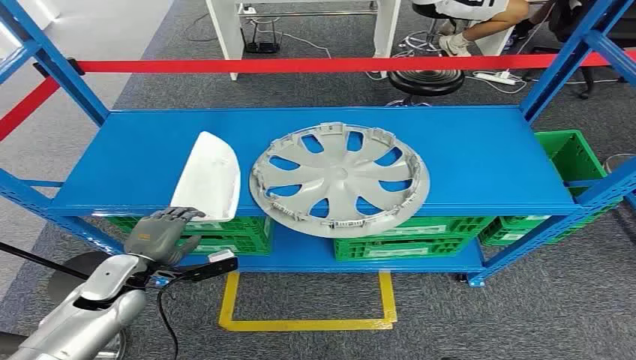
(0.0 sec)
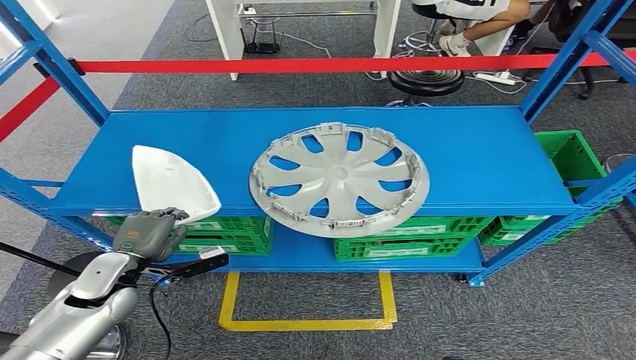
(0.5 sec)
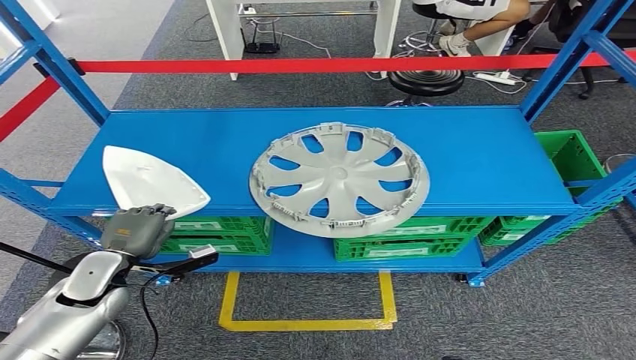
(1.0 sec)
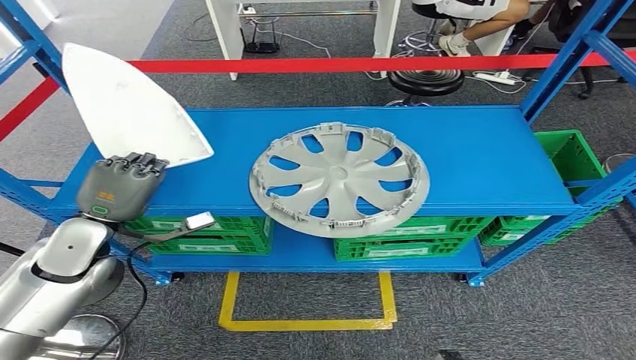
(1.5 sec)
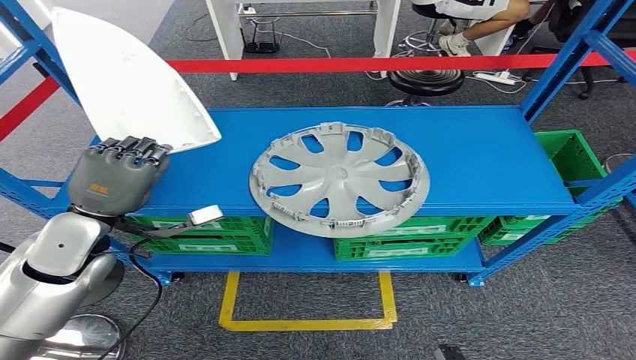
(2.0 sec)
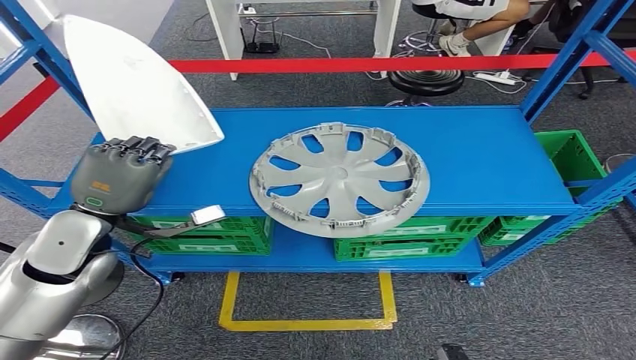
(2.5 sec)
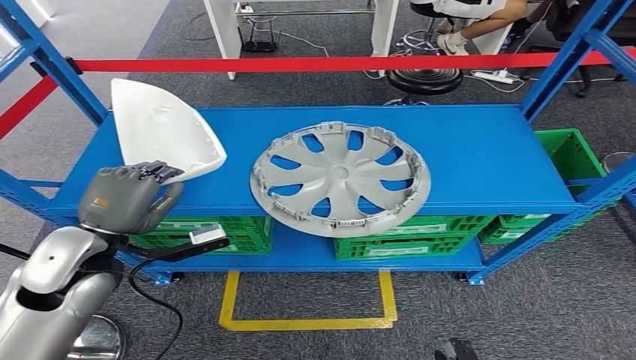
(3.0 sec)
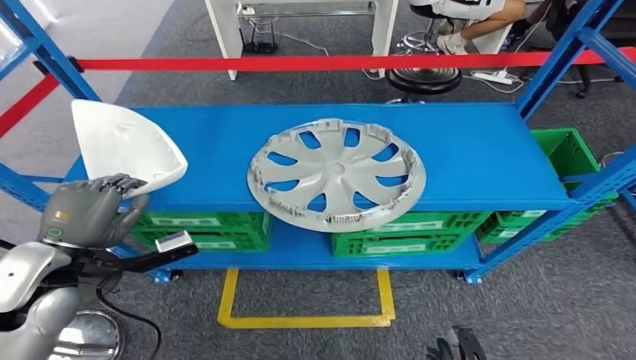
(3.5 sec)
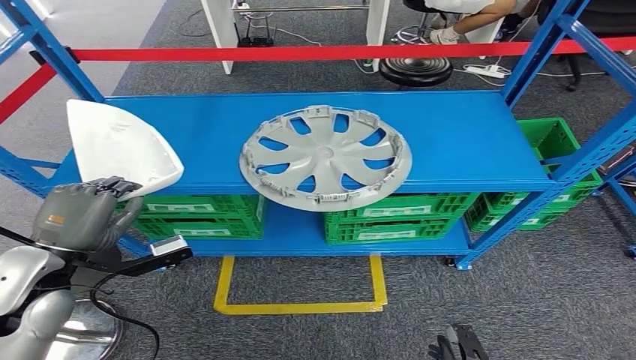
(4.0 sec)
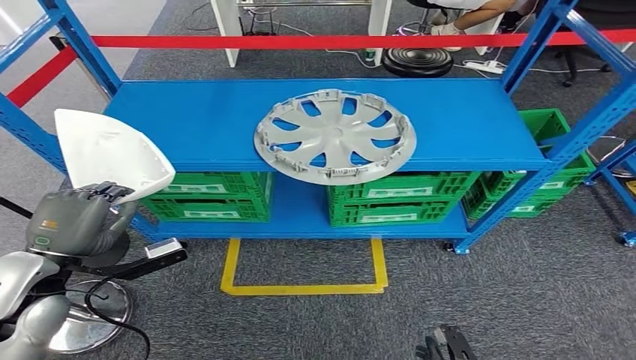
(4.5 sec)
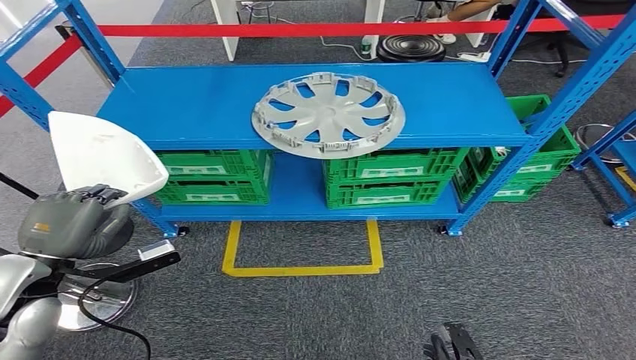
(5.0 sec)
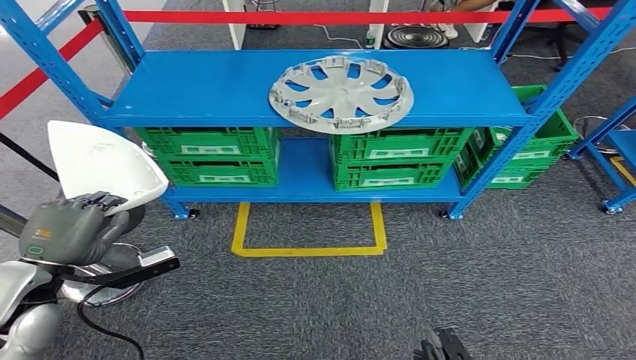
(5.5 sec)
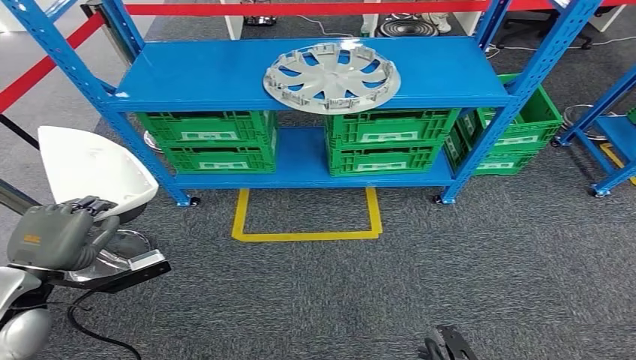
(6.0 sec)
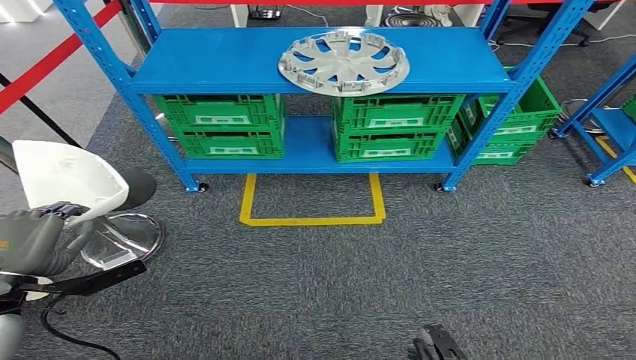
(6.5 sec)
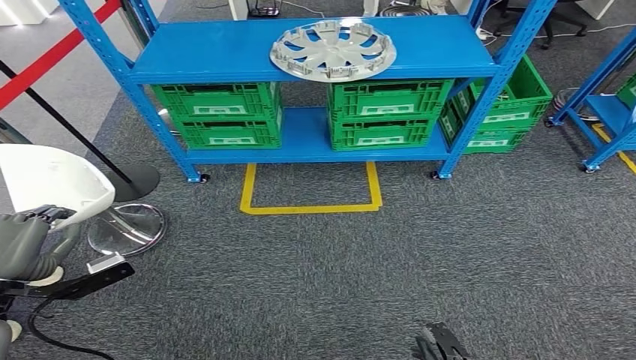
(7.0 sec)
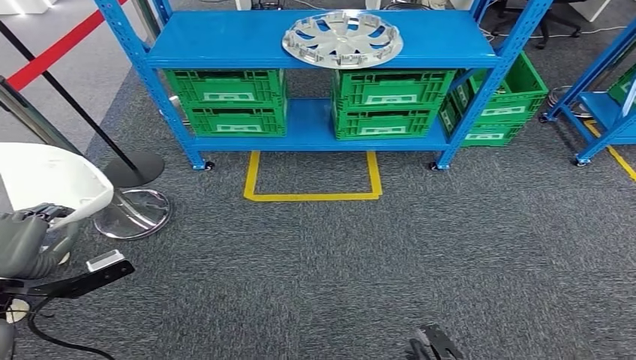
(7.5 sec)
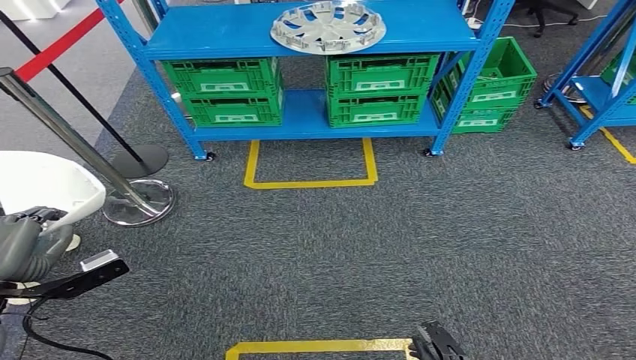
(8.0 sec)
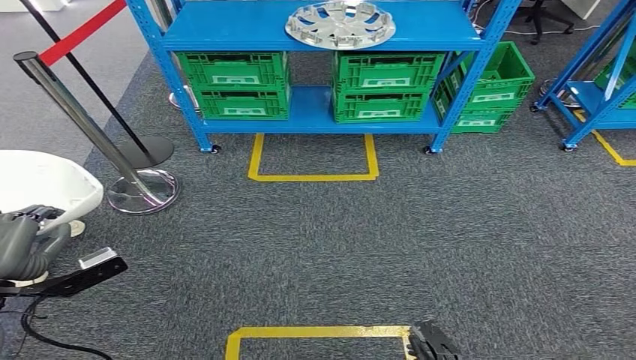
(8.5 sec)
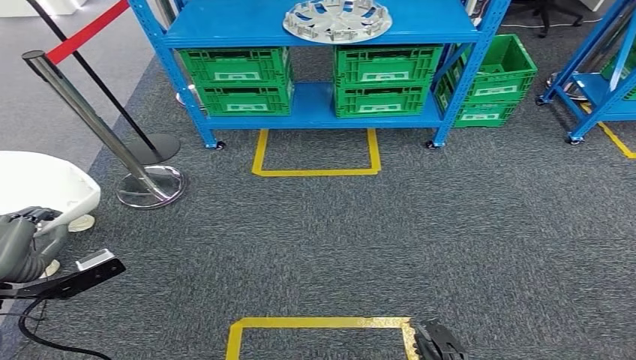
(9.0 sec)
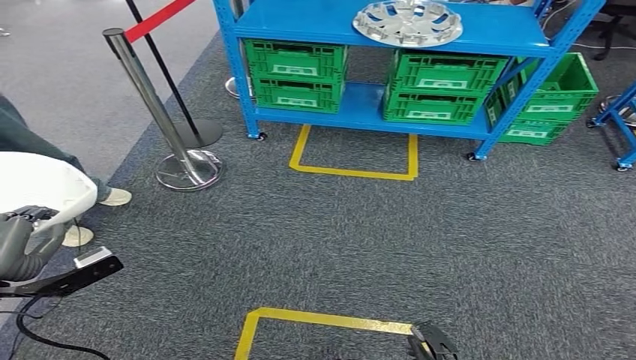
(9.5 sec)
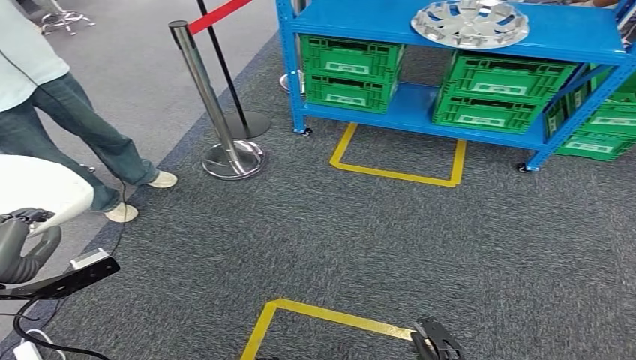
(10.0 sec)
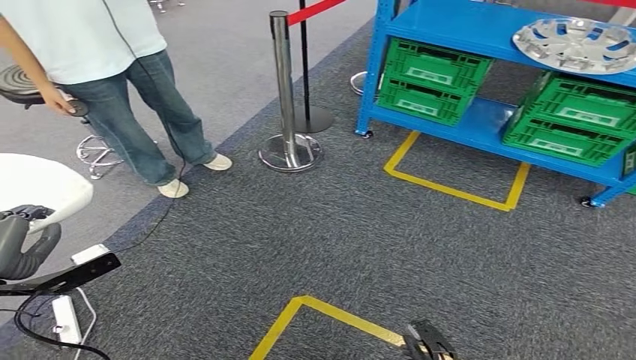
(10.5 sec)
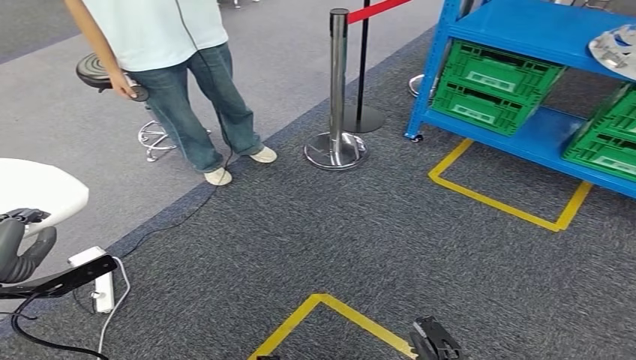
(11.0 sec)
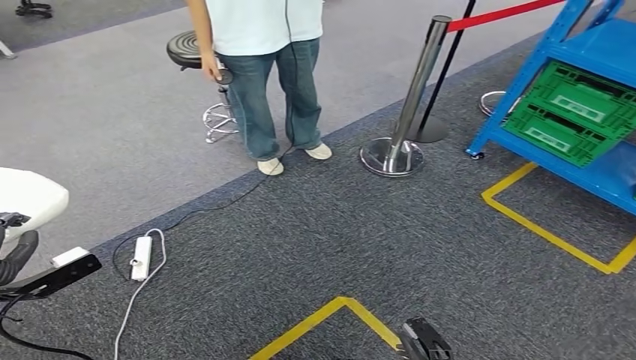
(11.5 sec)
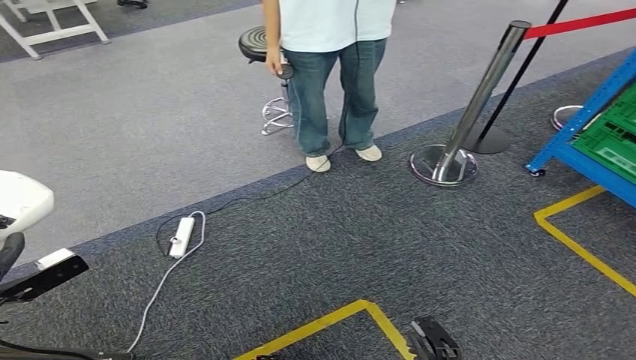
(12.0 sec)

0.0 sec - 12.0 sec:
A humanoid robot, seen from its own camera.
Step, 0.0 sec - 3.0 sec: Pick up the small parts from the shelf.

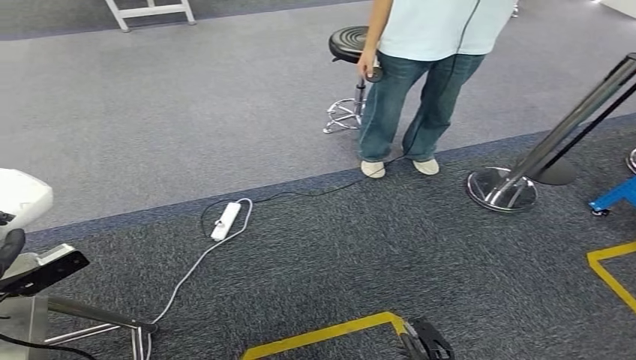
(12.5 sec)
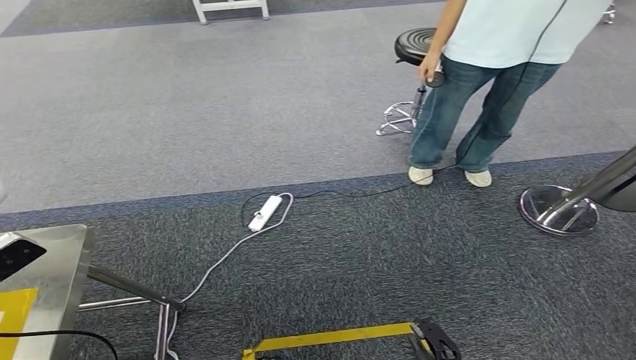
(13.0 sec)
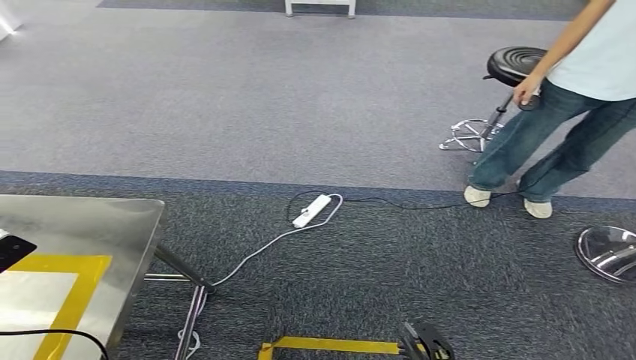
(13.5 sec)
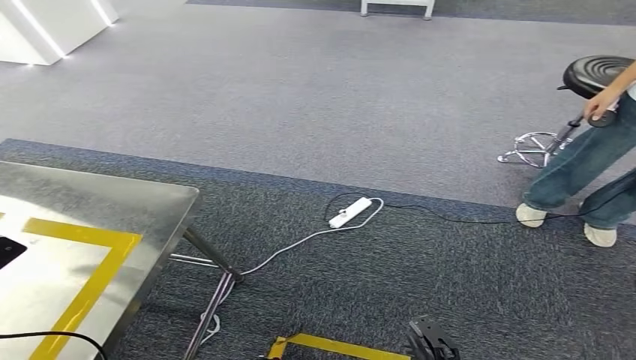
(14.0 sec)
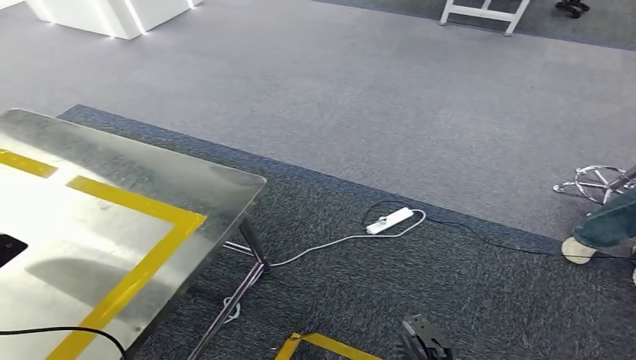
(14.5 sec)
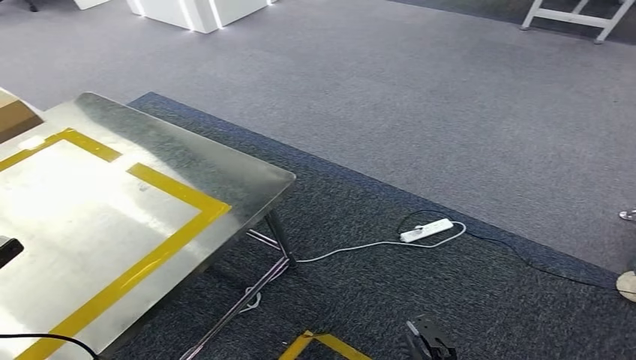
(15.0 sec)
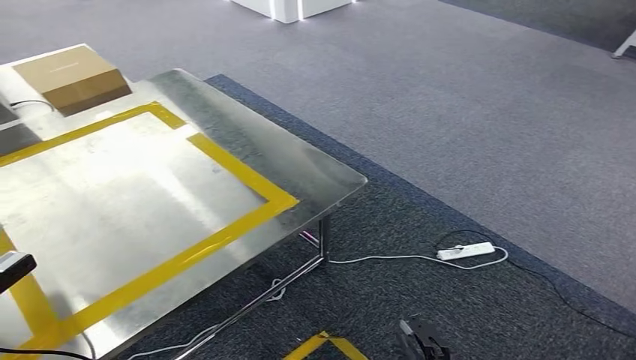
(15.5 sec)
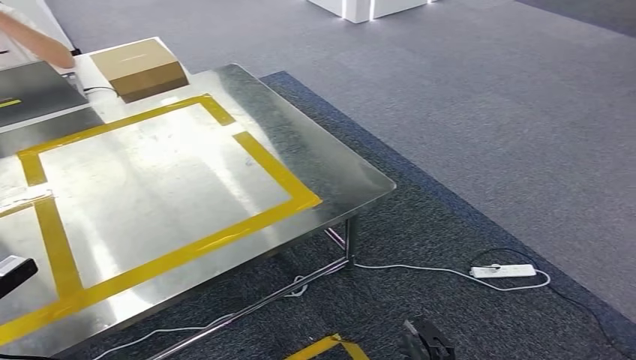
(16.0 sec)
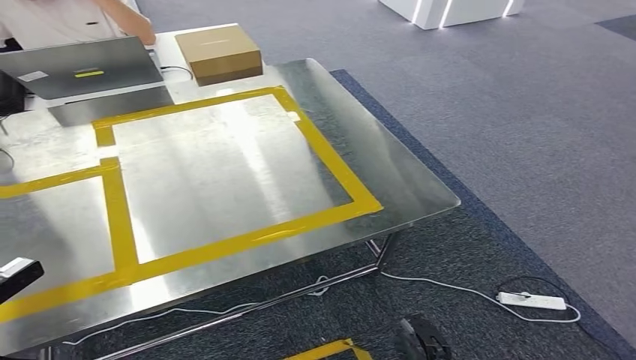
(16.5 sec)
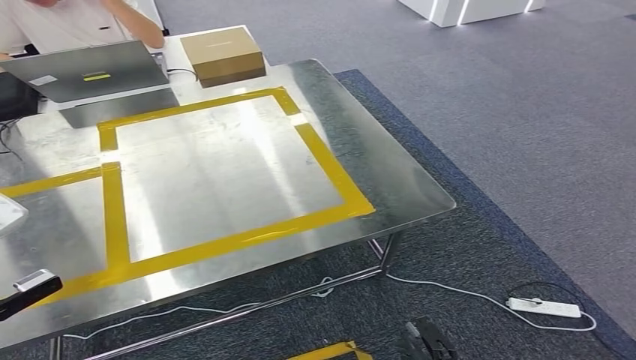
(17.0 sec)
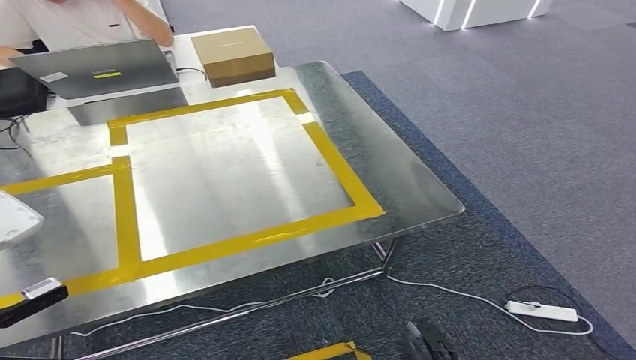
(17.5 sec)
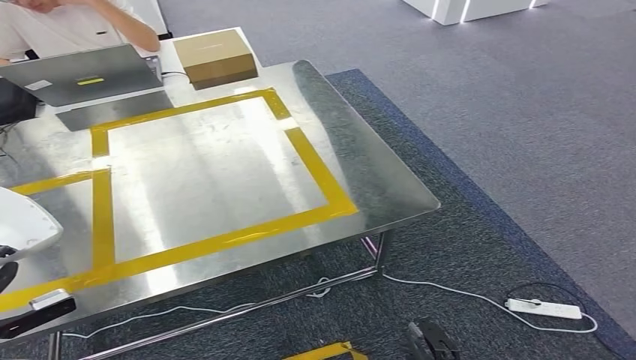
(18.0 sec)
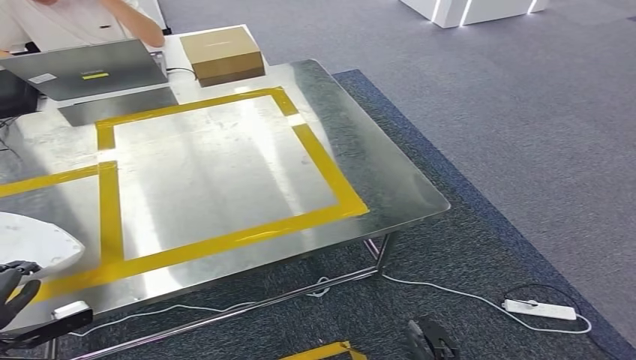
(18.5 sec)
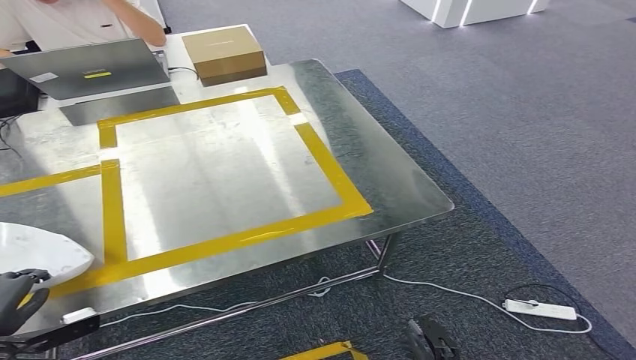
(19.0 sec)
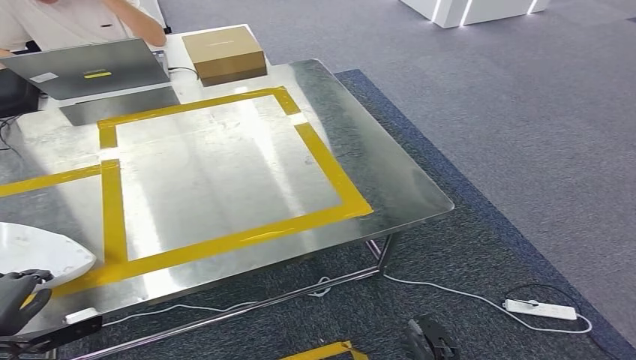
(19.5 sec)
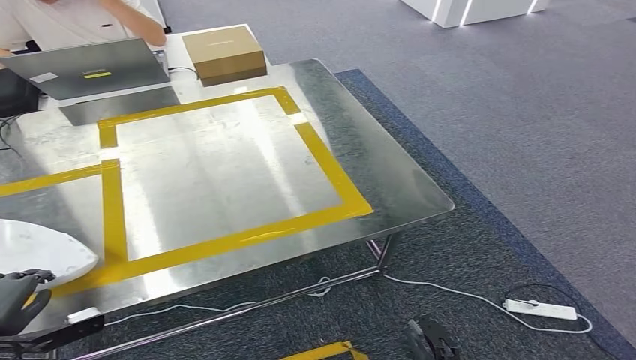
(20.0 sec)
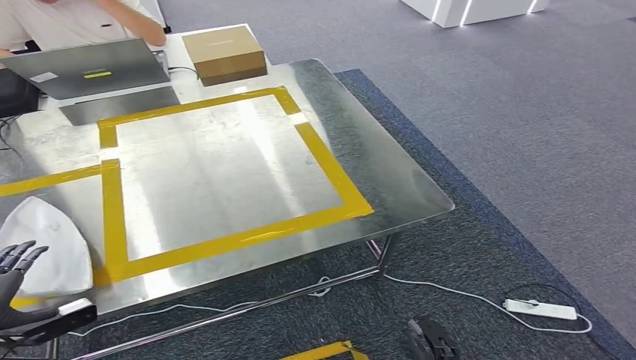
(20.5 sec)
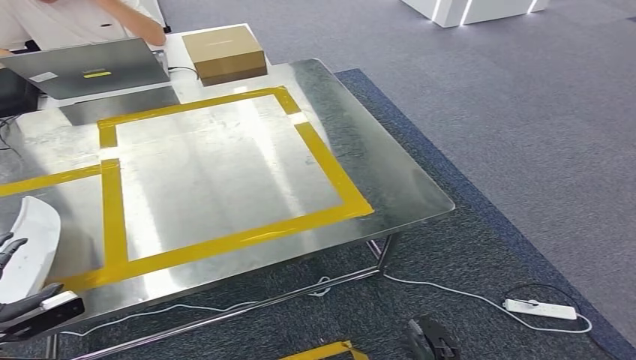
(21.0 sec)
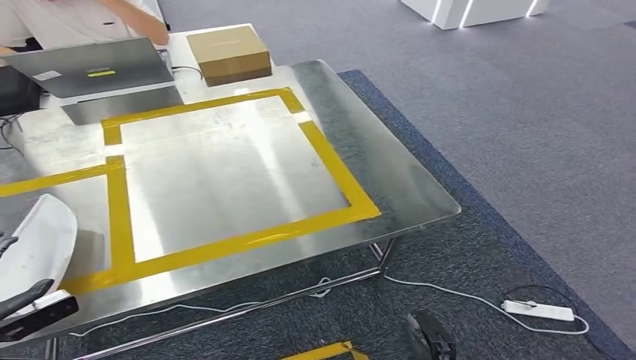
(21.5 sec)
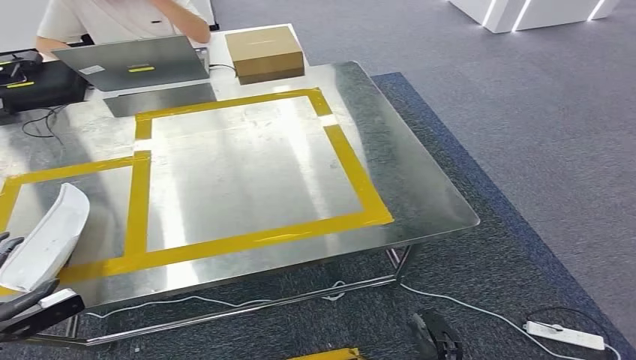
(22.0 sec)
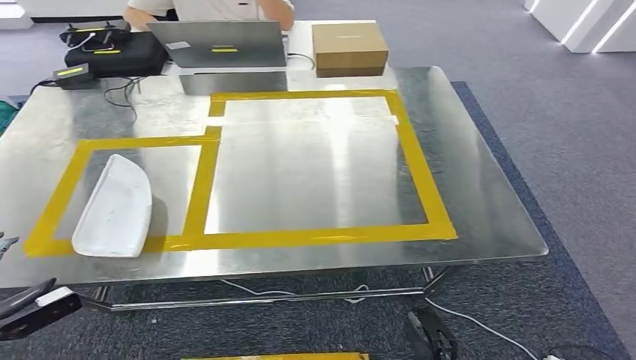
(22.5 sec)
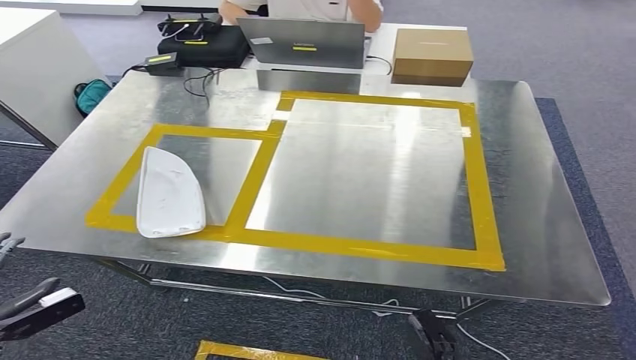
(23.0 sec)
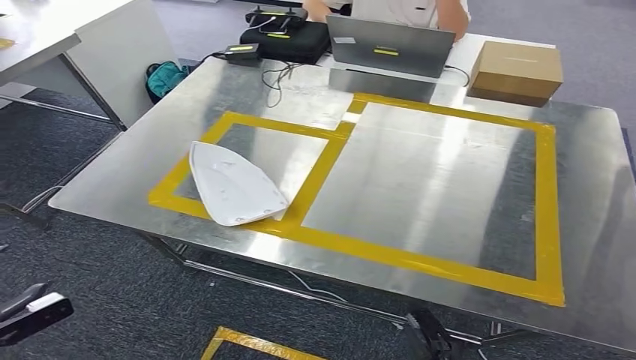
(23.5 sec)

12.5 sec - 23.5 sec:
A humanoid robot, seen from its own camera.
Step, 12.5 sec - 15.5 sec: Move the small parts to the workbench.
Step, 16.0 sec - 23.0 sec: Insert the small parts into the corresponding holes on the workbench.
18.0 sec - 20.0 sec: The left hand shifts by approximately 5 cm.
20.0 sec - 21.5 sec: There are only small adjustments of the hands.
